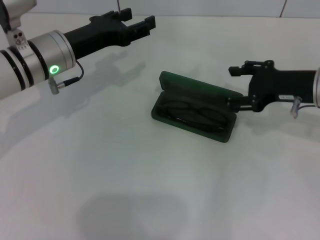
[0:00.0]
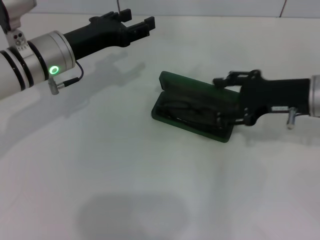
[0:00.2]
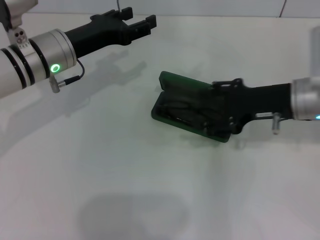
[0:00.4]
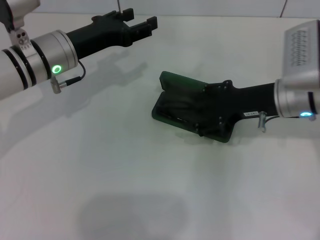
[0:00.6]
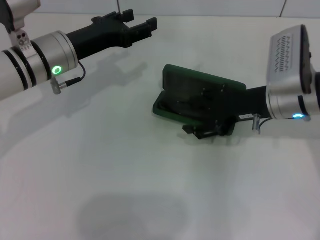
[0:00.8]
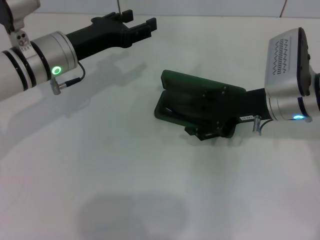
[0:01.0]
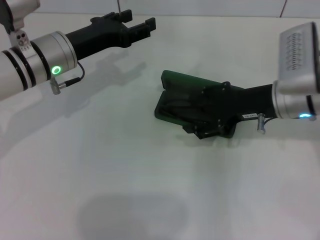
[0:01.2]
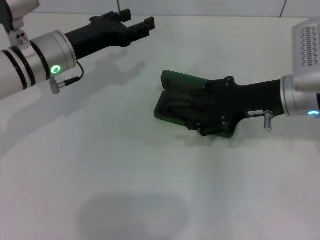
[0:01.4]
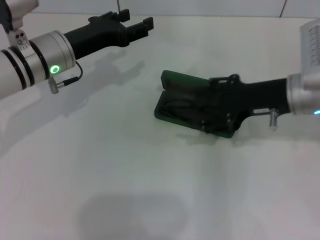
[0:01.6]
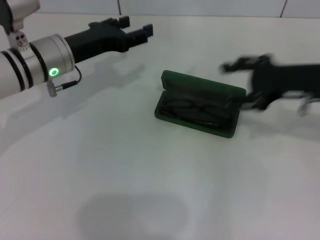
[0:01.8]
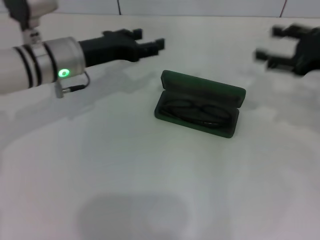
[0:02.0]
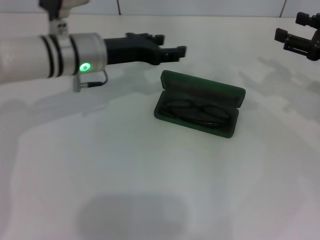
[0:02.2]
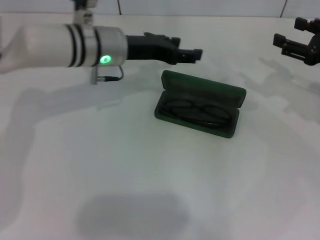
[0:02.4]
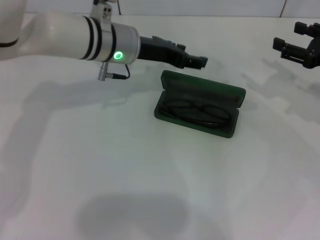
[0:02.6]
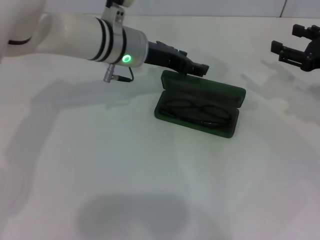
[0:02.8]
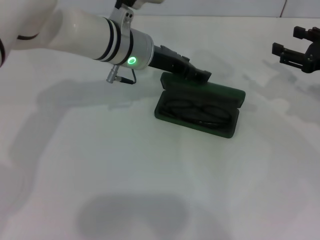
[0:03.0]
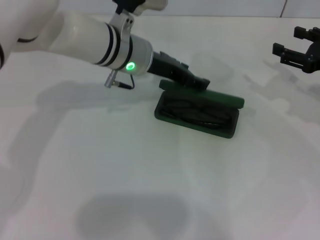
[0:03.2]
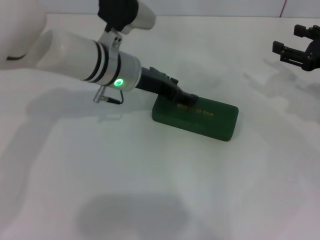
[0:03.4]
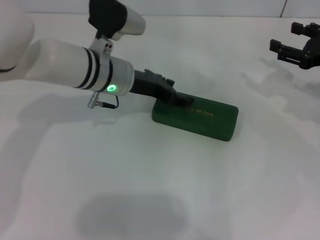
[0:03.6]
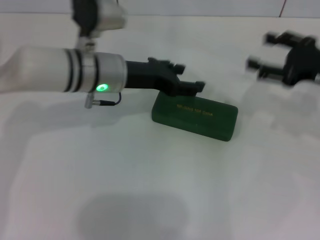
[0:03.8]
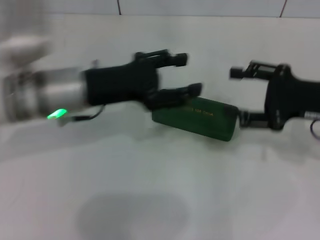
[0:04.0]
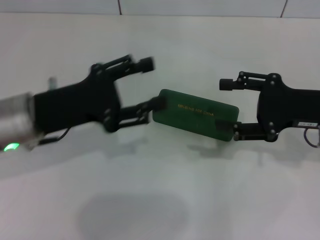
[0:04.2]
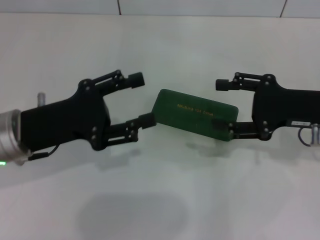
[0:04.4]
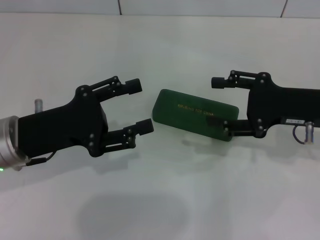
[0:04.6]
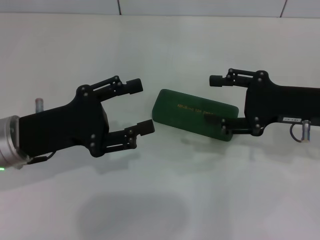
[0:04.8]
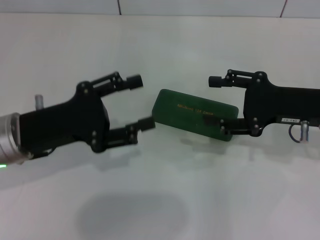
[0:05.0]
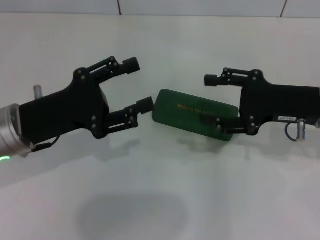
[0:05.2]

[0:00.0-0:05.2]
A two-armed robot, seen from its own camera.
Step, 0:00.0 to 0:03.6: Close the glasses case with your left hand.
0:01.8 to 0:03.4: Both grippers move to the right, approximately 10 cm.
0:03.4 to 0:05.2: The left gripper shifts approximately 20 cm backward and to the left, while the right gripper moves to the left, approximately 10 cm.

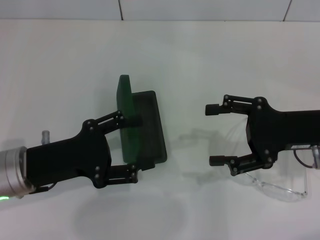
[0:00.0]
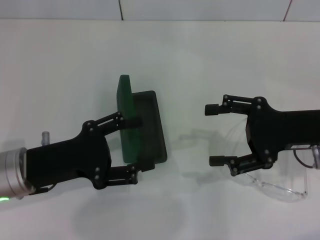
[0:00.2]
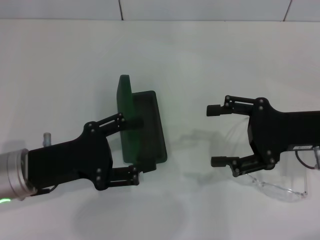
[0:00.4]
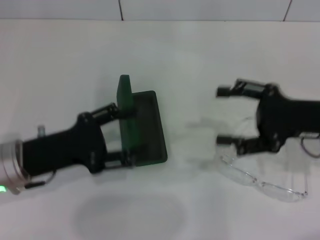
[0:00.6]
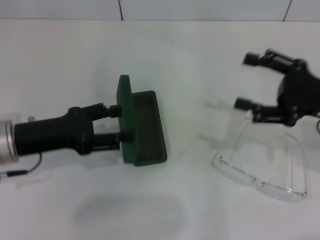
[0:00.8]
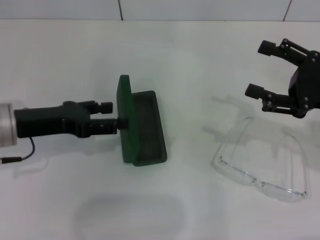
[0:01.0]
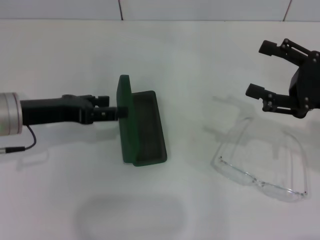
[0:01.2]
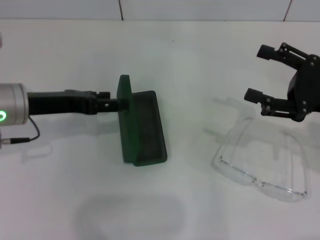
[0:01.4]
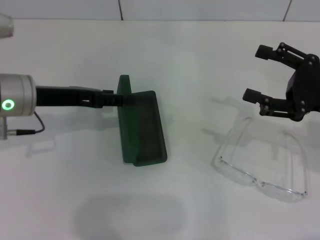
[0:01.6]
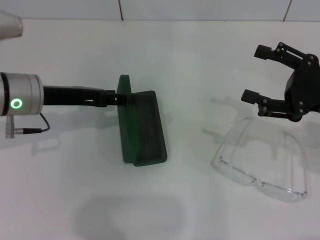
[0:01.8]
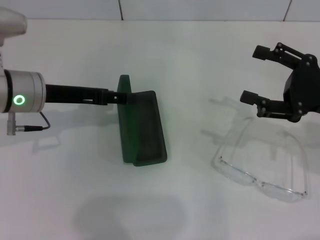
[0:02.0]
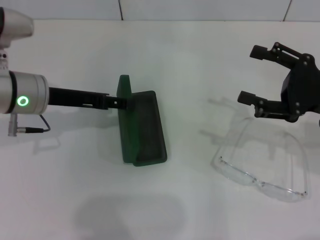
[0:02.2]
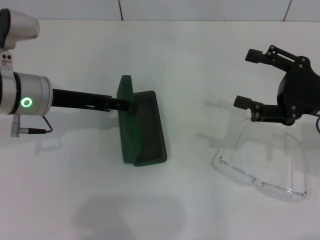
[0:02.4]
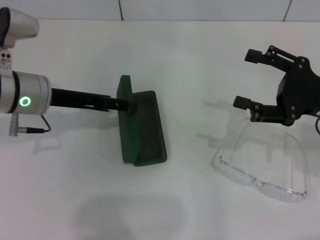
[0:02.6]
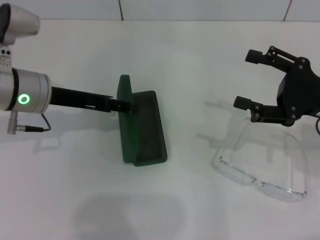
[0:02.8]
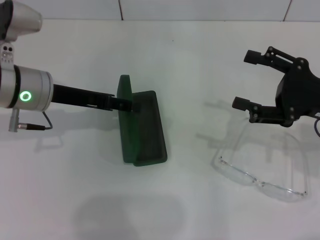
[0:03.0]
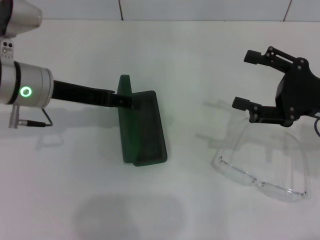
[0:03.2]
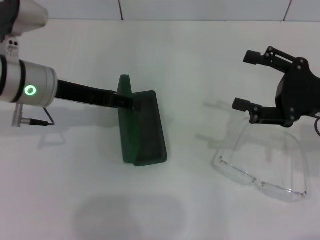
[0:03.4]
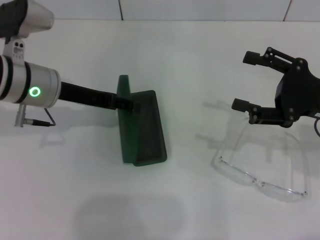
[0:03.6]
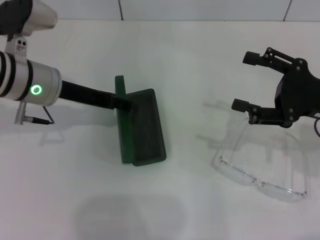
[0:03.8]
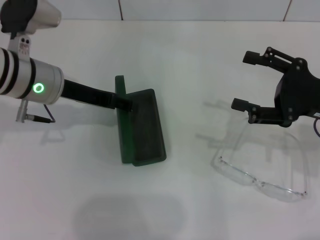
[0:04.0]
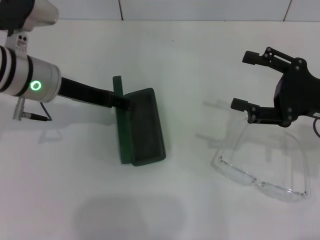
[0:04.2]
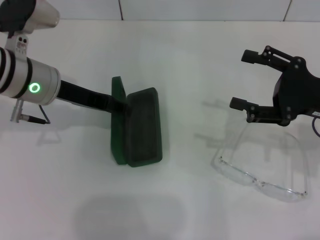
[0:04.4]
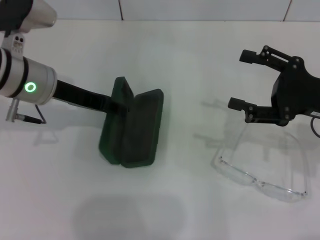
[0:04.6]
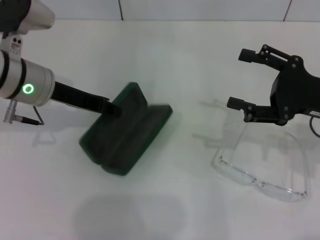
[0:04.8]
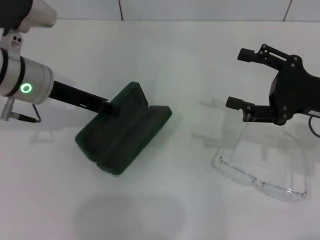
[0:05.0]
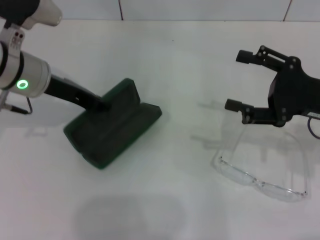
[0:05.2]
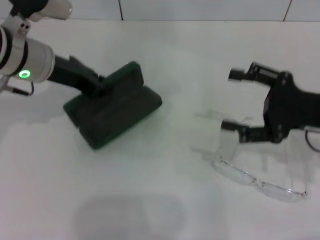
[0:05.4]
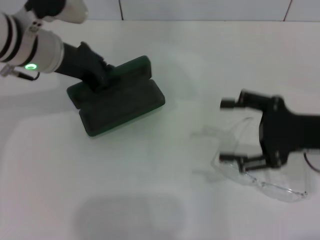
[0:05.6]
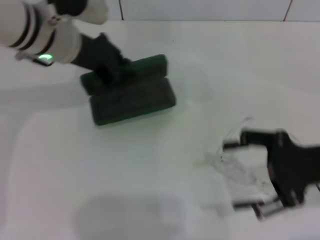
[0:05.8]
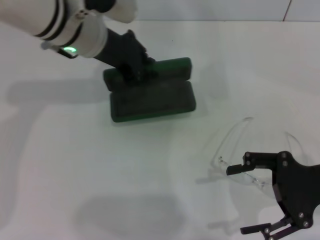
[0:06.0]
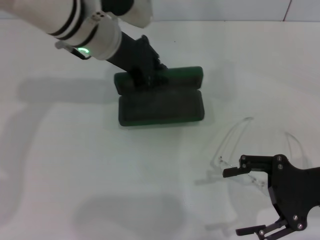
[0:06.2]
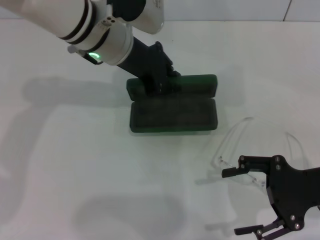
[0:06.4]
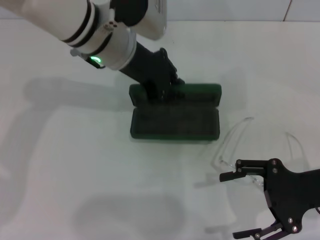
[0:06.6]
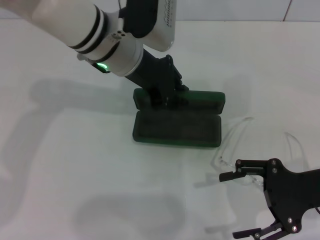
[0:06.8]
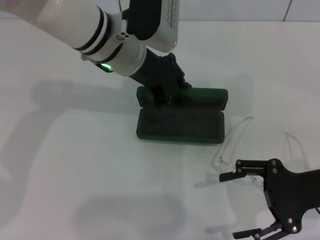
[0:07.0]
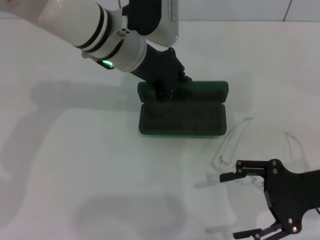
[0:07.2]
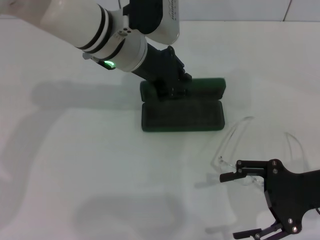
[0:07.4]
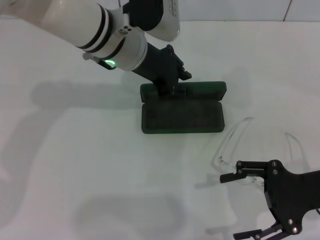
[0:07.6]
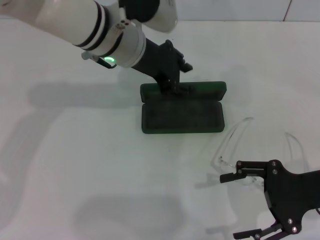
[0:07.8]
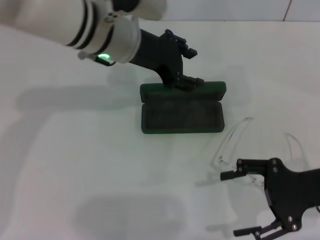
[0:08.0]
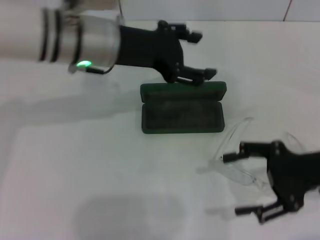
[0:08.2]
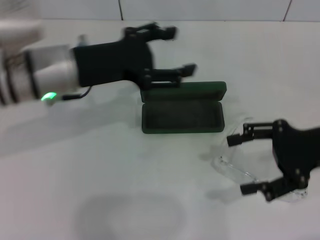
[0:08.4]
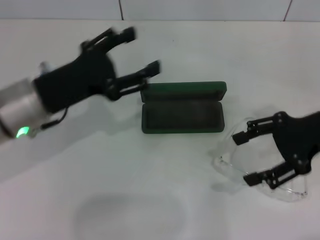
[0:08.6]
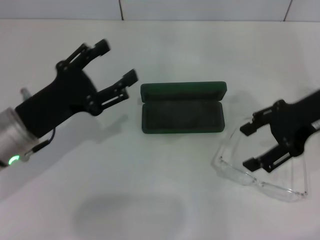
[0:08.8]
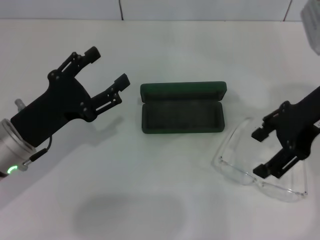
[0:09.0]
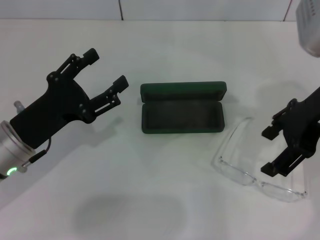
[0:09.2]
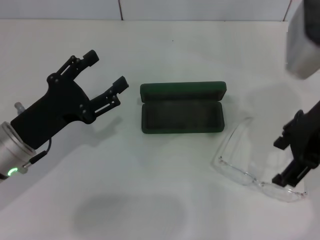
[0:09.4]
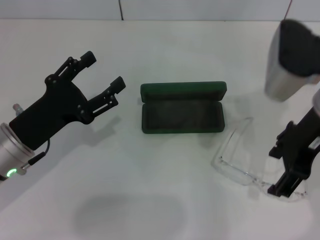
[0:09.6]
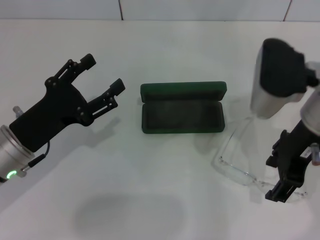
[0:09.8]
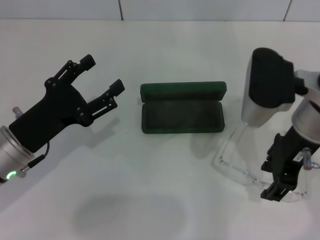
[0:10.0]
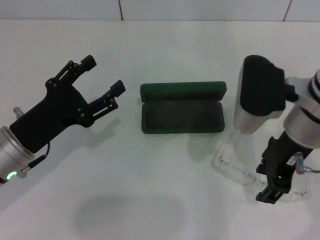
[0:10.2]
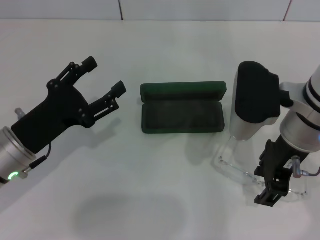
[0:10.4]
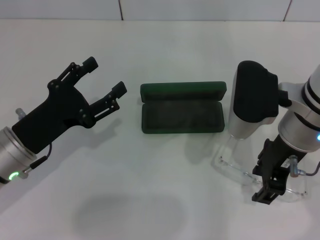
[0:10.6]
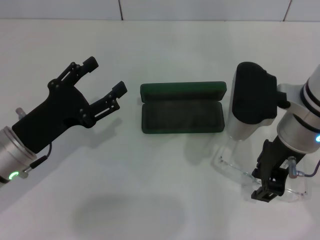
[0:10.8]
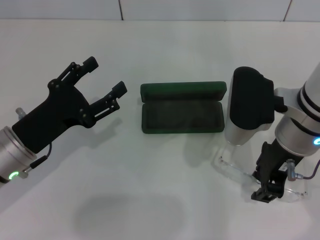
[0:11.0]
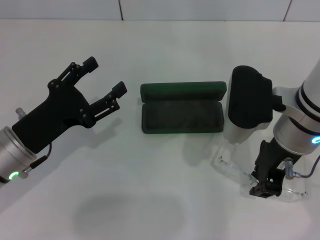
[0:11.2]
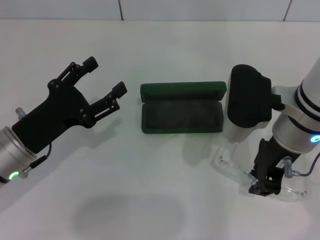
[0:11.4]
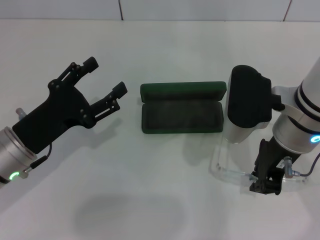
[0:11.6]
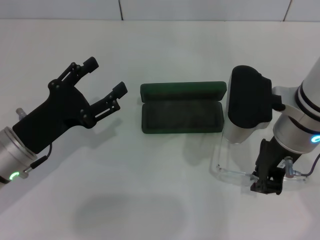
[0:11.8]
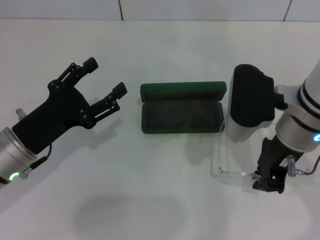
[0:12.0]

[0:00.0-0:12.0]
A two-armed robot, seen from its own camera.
Step, 0:00.0 to 0:04.4: Grab the glasses case with your left hand.
Step, 0:04.6 to 0:07.4: Place the glasses case in the center of the table with your left hand.
Step, 0:07.8 to 0:11.6: Grab the eyeglass frame with your right hand.
0:00.0 to 0:01.6: The left gripper moves forward, roughly 10 cm.
0:01.6 to 0:04.4: The grippers make only small movements.
0:04.4 to 0:06.0: The left gripper moves to the right, roughly 5 cm, and closes its fingers; the right gripper ends up approximately 5 cm from where it was.
0:06.0 to 0:07.6: The left gripper shifts by some 5 cm.
0:07.6 to 0:09.0: The right gripper travels upward and forward by roughly 15 cm; the left gripper goes some 25 cm to the left, backward and downward, and opens up.
0:09.0 to 0:10.4: The right gripper moves downward and to the left, roughly 10 cm.
0:10.4 to 0:12.0: The right gripper closes up.

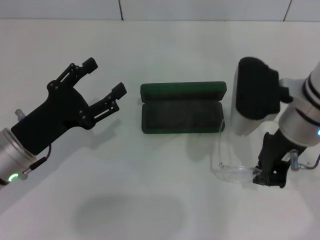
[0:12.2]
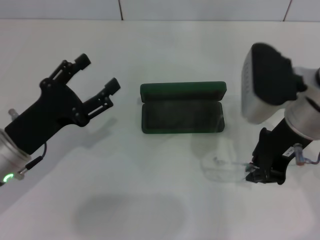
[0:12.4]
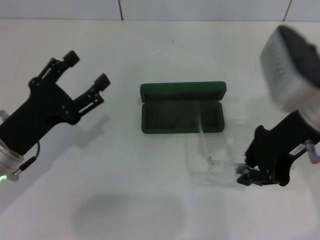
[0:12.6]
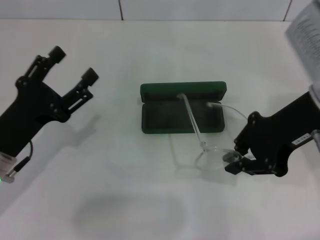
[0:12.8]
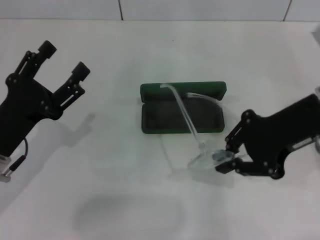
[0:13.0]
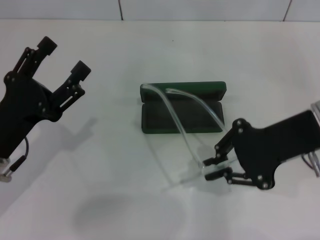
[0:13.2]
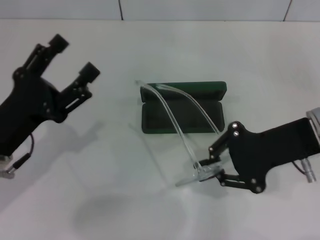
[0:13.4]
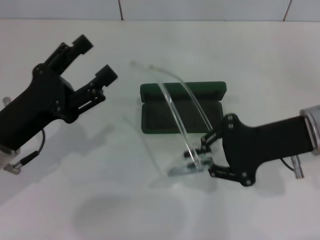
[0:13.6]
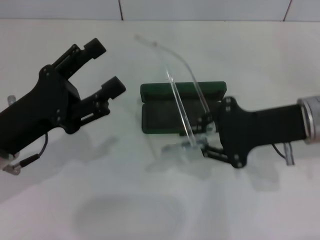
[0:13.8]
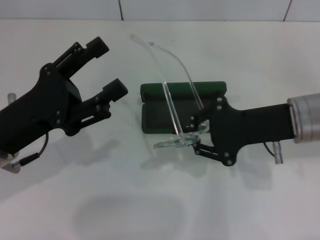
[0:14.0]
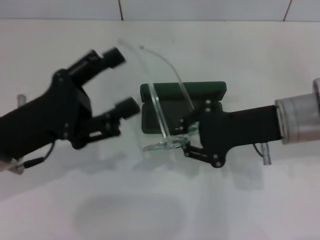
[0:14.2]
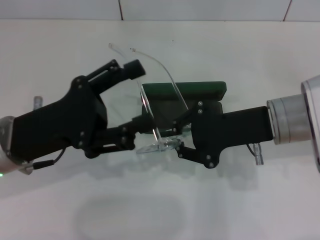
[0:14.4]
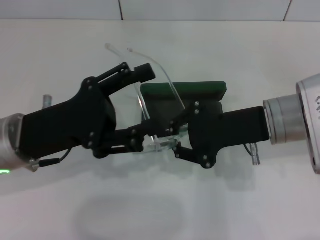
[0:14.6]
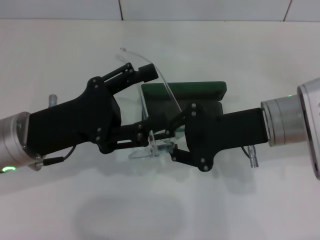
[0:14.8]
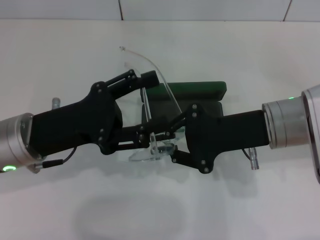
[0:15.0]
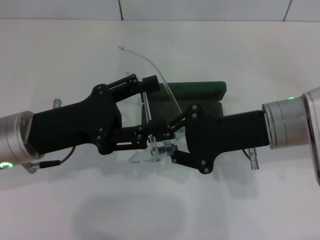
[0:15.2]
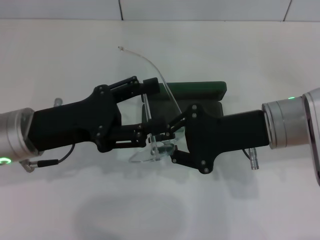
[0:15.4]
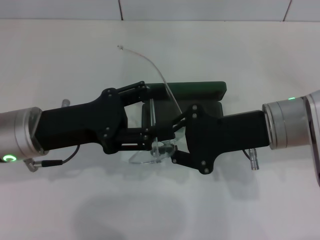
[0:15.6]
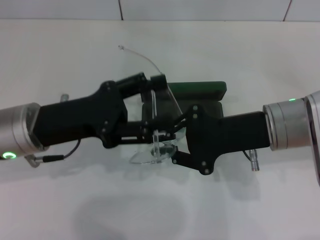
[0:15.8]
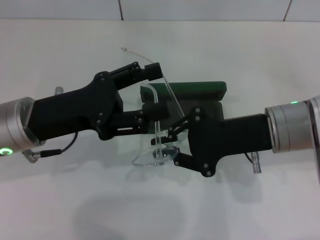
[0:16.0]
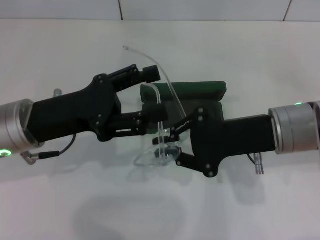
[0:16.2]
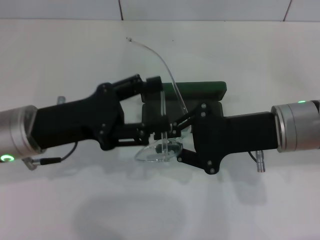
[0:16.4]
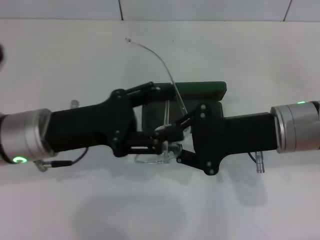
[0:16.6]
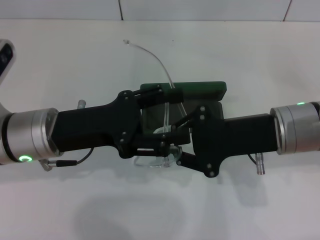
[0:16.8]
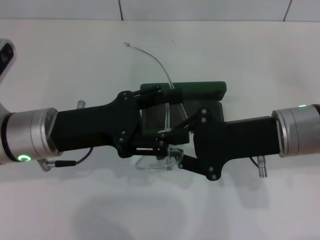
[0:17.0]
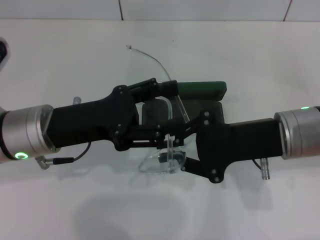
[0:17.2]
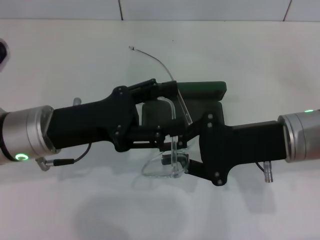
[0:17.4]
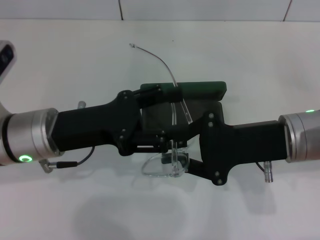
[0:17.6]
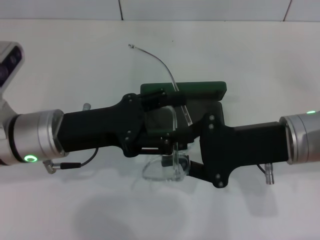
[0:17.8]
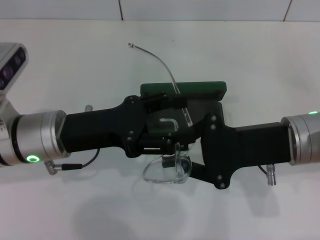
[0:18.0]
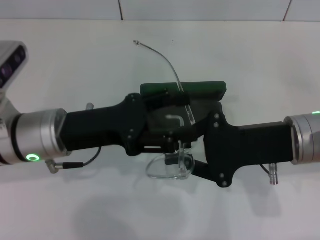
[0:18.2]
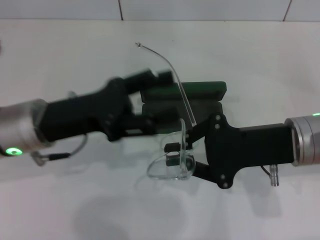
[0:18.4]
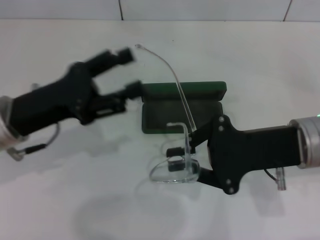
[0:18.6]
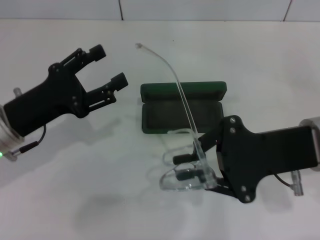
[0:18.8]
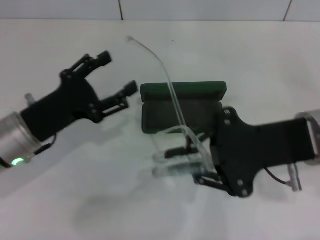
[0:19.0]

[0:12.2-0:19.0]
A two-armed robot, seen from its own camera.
0:12.2 to 0:13.6: The right gripper is displaced to the right by about 5 cm.
0:15.0 to 0:17.6: The grippers make only small movements.
0:17.6 to 0:19.0: The left gripper moves approximately 5 cm.
